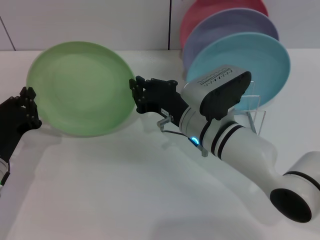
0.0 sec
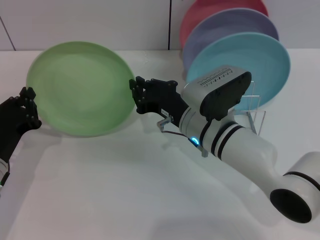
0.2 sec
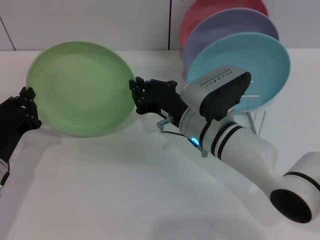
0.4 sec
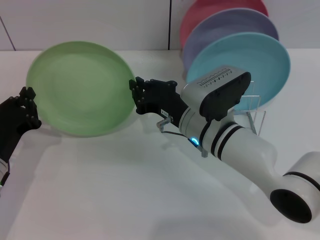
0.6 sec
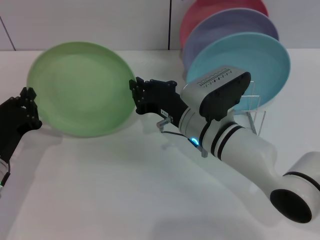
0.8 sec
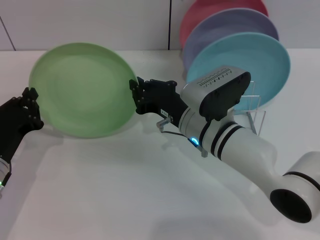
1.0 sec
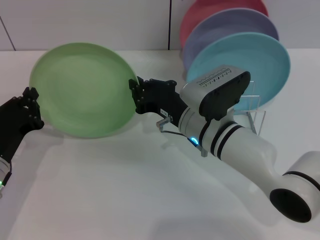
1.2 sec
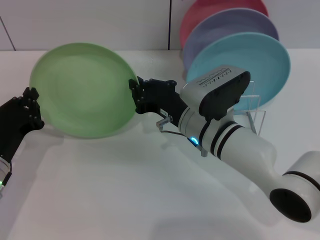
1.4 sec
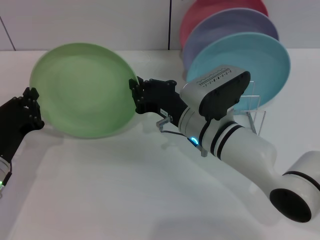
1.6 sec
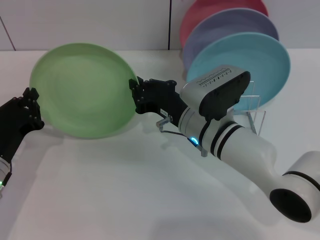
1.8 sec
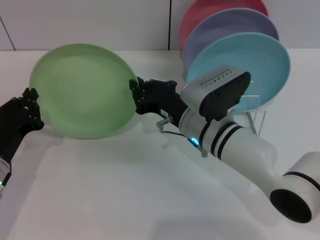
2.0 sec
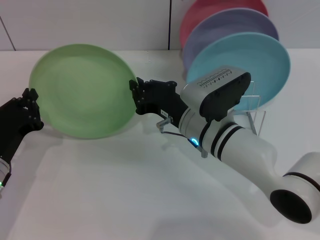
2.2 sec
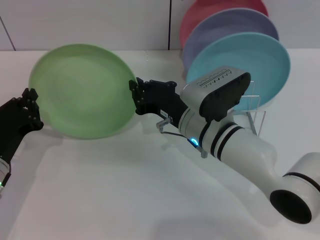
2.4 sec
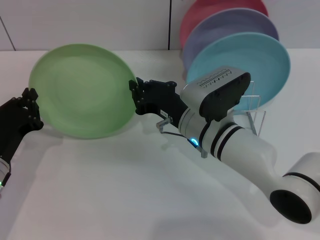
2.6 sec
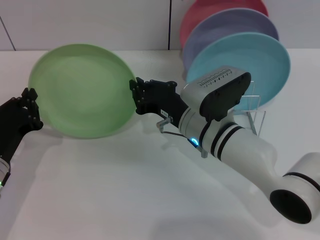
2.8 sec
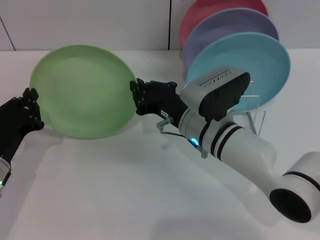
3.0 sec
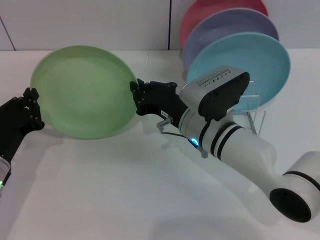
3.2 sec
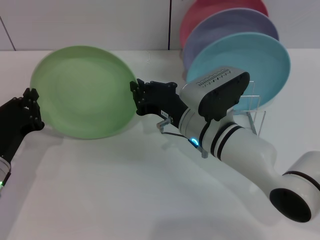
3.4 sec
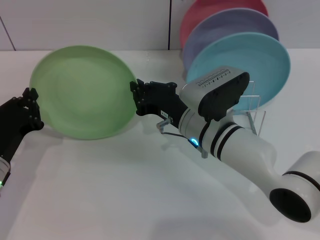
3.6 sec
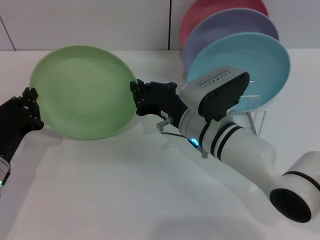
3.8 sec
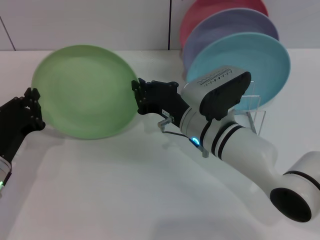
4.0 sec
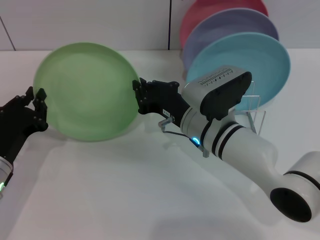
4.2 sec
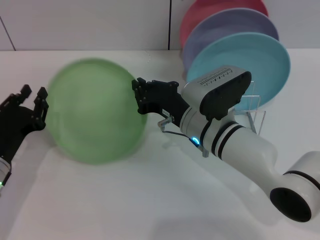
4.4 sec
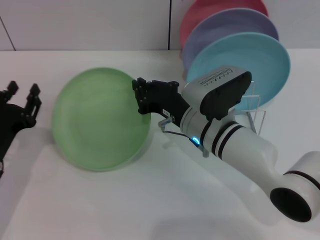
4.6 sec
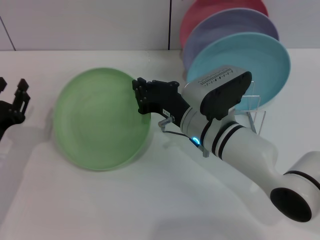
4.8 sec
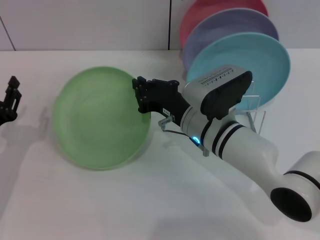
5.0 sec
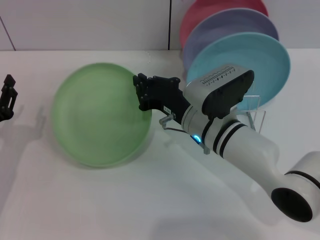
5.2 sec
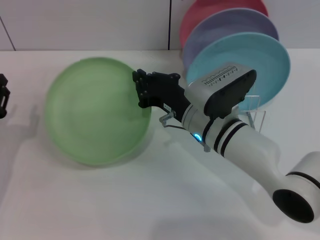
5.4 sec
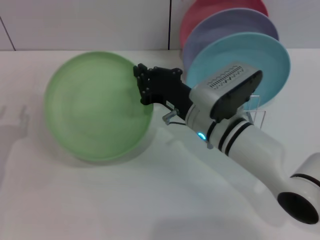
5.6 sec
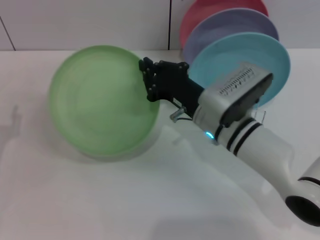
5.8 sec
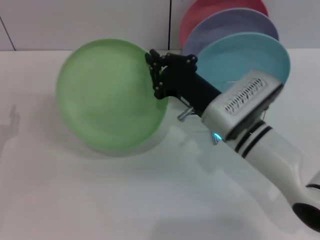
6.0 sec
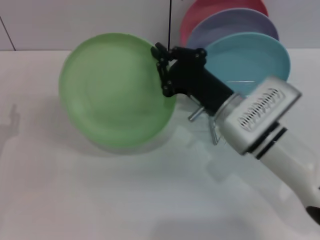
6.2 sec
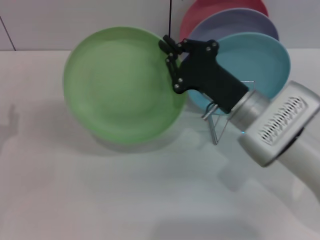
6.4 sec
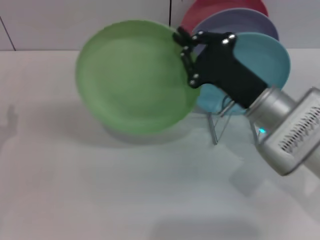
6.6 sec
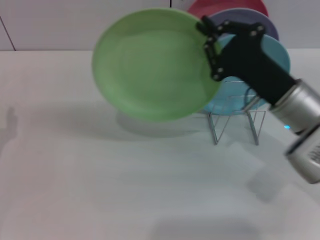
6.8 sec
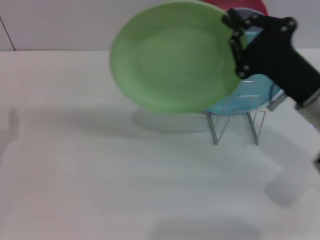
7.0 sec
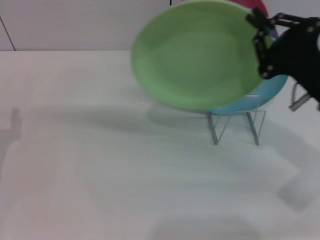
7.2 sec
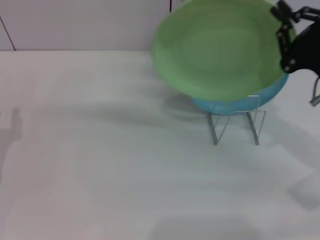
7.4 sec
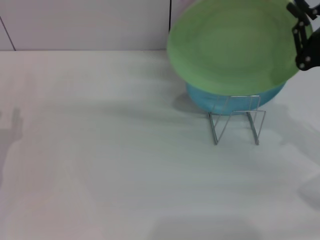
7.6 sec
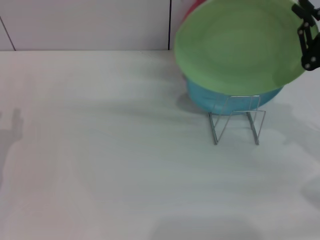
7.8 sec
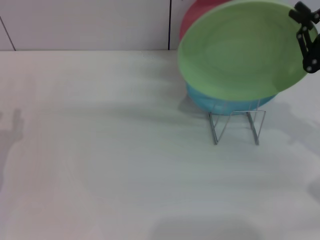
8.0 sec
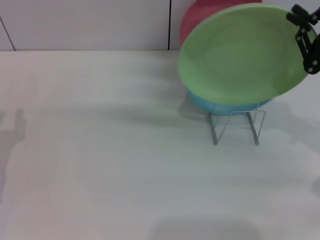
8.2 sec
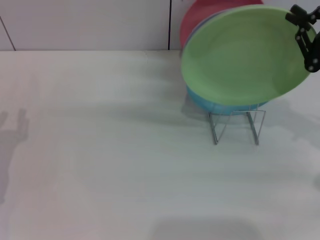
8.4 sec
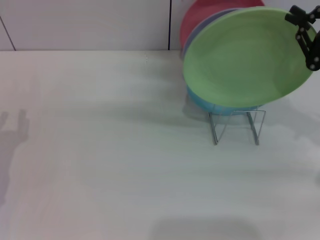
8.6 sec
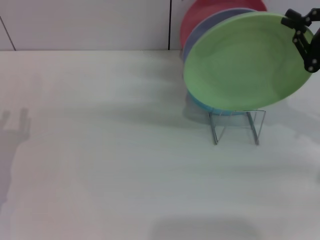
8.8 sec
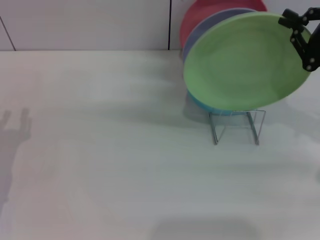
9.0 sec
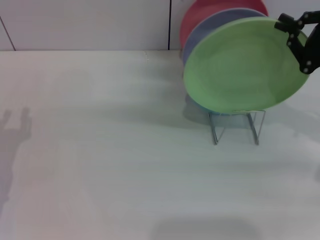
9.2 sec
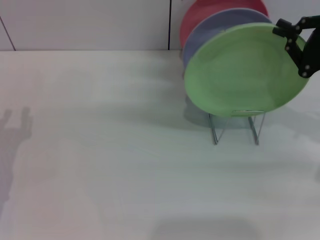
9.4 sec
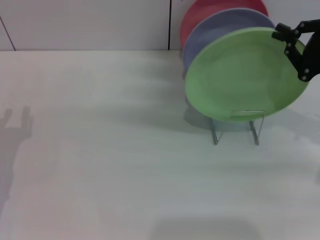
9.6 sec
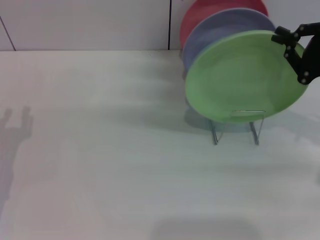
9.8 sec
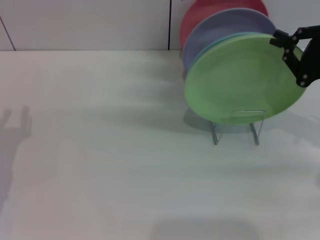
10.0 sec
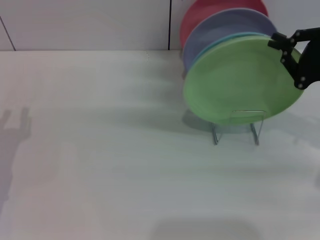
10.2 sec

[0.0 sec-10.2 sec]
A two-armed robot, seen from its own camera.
Task of the whole recording: Grip the plate with one hand, pass it to the other, then set it on the shelf.
Step, 0.0 sec to 5.8 sec: Pass the plate from the left gripper to the right gripper.
0.0 sec to 4.4 sec: Both grippers stay about where they are.
4.4 sec to 5.8 sec: The left gripper shifts roughly 5 cm to the left, and opens up.
5.8 sec to 7.2 sec: The right gripper travels to the right by approximately 15 cm.
7.2 sec to 8.8 sec: The right gripper heads to the right, covering roughly 10 cm.
8.8 sec to 10.2 sec: There are only small adjustments of the grippers.

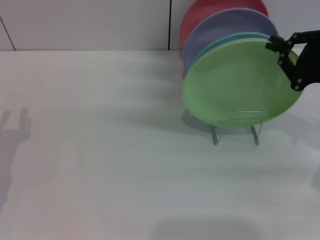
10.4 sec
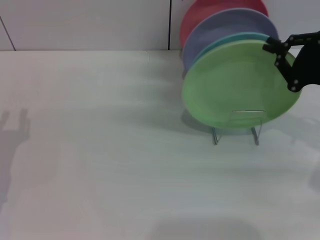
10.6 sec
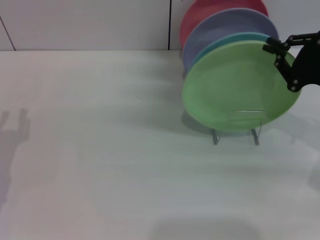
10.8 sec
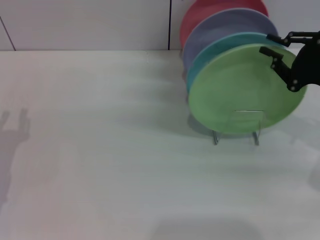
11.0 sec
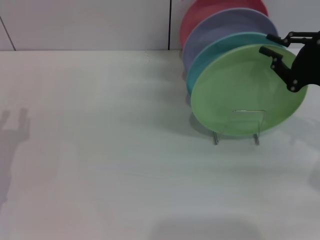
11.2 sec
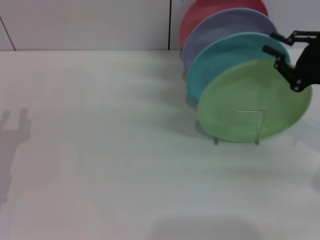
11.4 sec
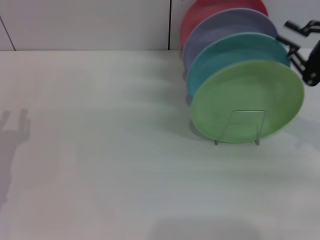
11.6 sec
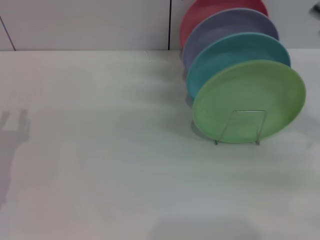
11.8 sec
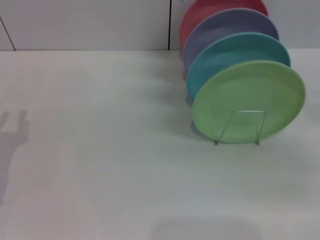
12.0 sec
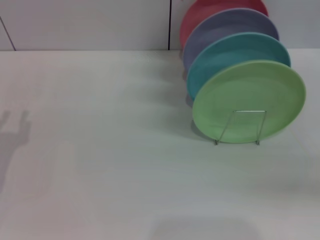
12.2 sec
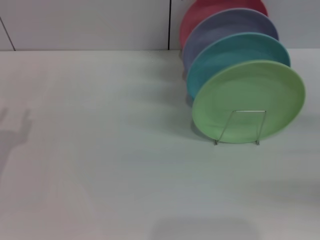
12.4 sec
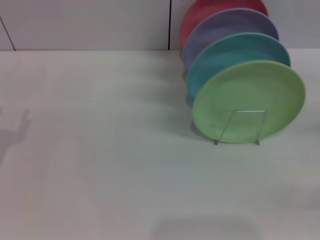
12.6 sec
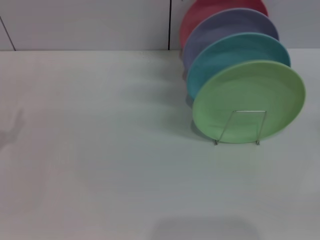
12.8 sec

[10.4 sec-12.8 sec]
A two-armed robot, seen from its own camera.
Task of the whole recording: Grip the plate with one hand, pass it to the other, then set it on the shelf.
10.4 sec to 11.6 sec: There are only small adjustments of the grippers.
11.6 sec to 12.8 sec: The right gripper is displaced to the right, backward and downward by some 15 cm, and opens its fingers.
